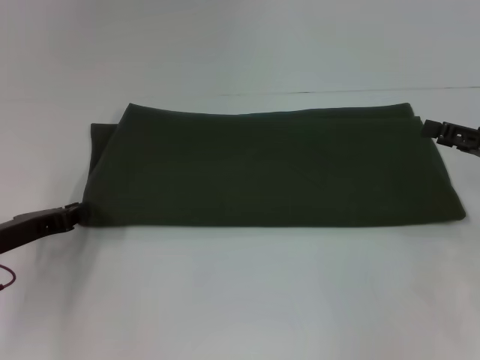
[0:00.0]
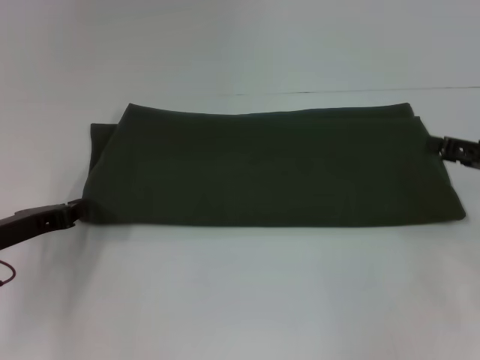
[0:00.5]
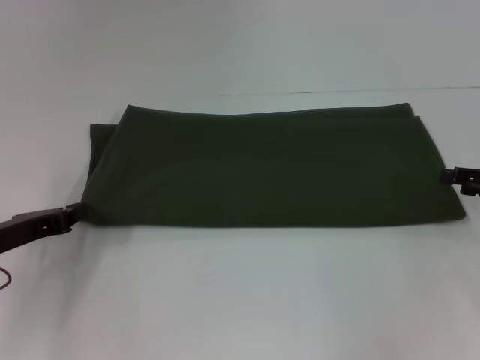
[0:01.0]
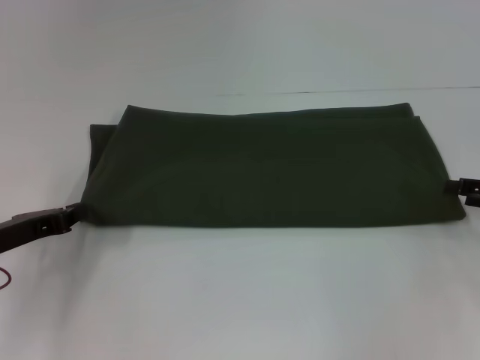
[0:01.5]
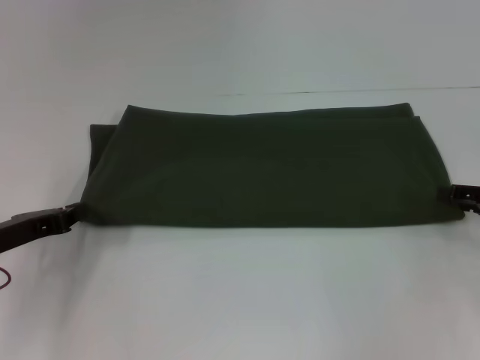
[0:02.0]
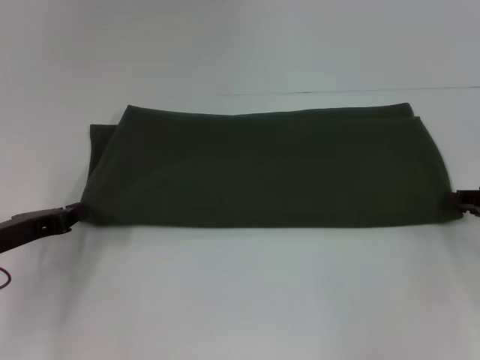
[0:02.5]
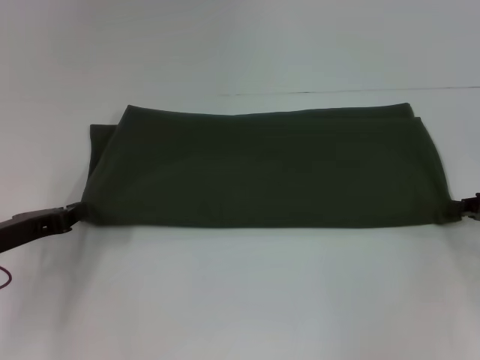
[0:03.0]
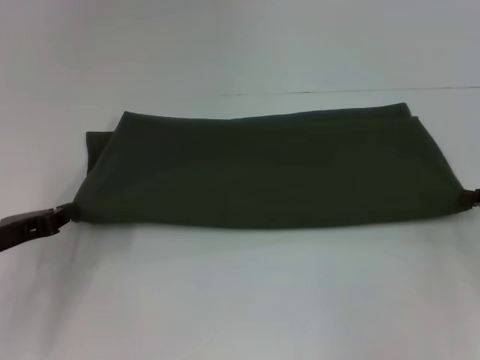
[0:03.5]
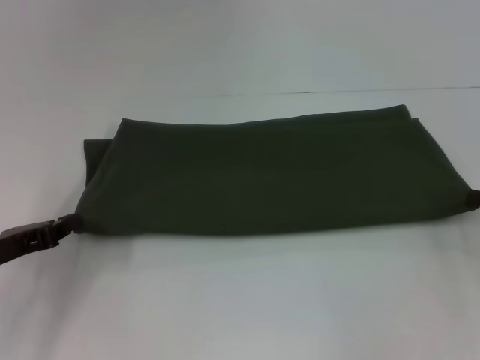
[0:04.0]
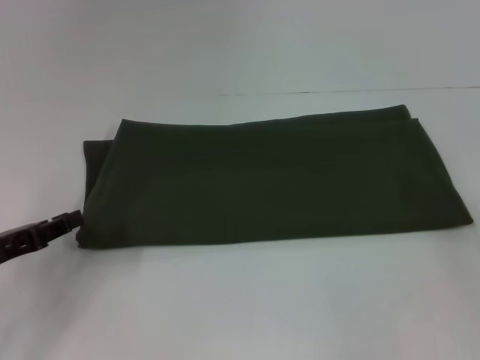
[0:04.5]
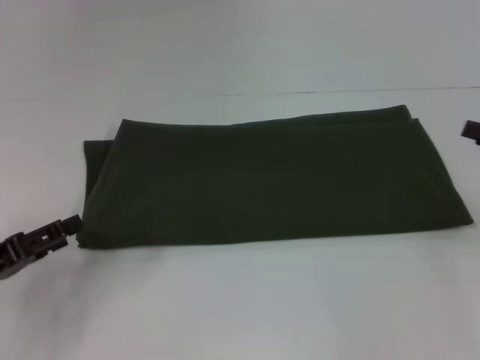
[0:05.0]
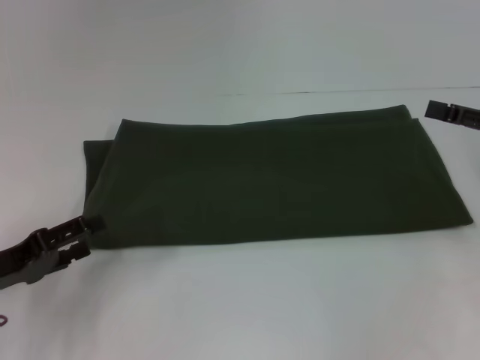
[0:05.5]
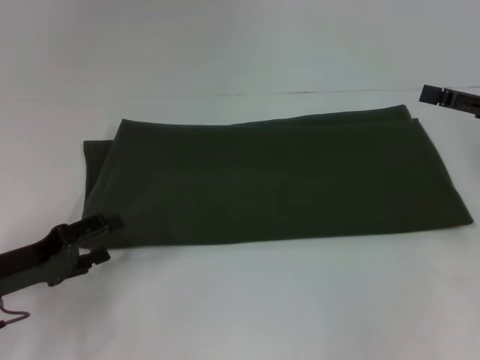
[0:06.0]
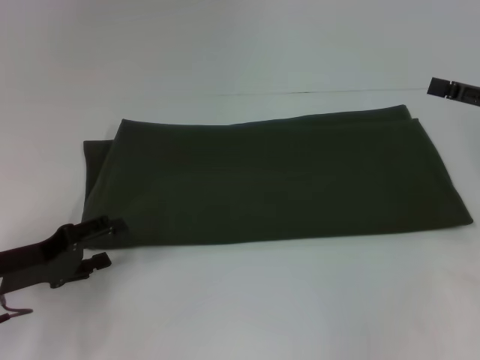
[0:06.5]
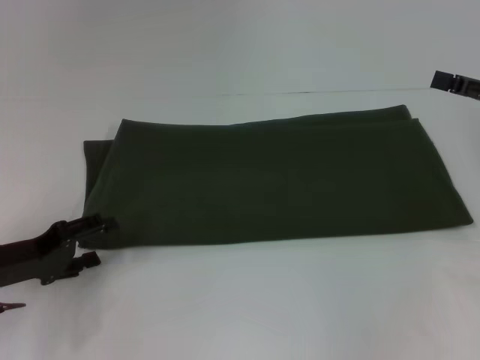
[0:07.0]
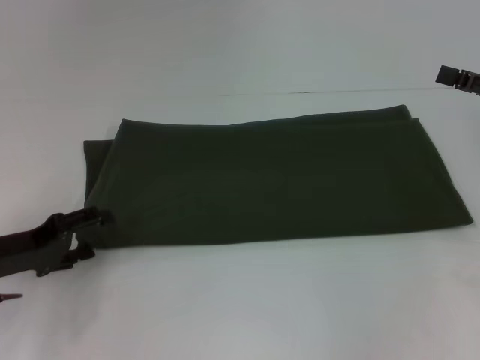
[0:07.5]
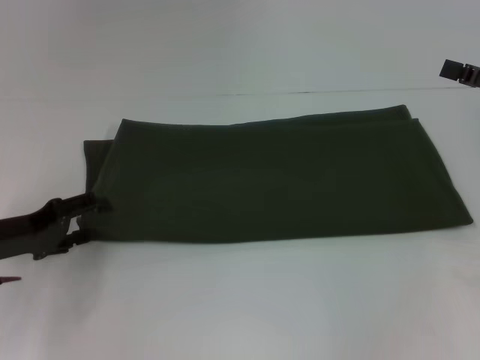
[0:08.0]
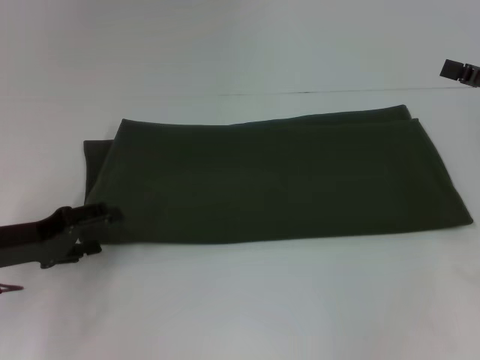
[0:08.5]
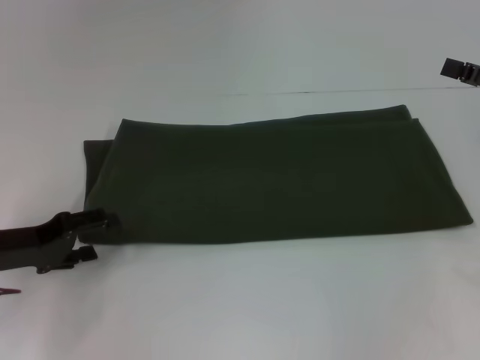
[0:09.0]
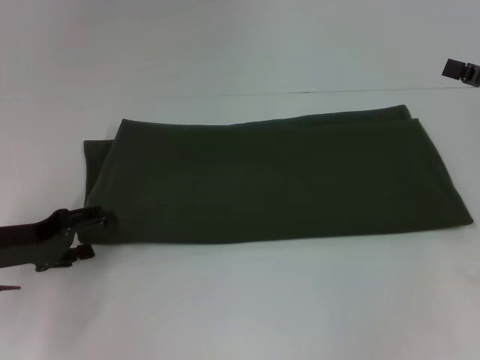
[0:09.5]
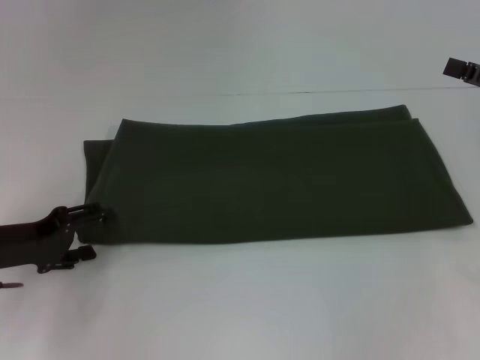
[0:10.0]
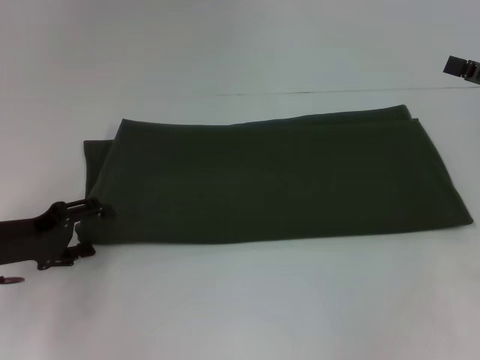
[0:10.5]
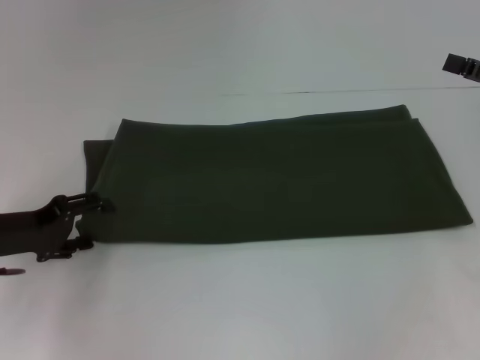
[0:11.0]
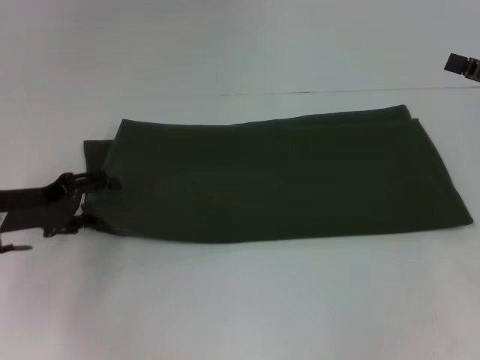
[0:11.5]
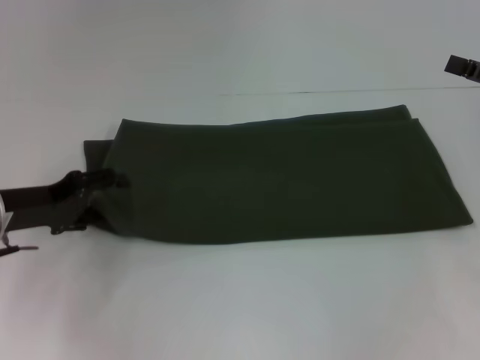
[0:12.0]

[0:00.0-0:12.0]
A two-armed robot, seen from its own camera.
0:02.0 to 0:04.0: The right gripper closes its fingers.
0:04.0 to 0:06.0: The right gripper shifts roughly 5 cm upward, and opens up; the left gripper opens its fingers.
0:06.0 to 0:10.0: The grippers stay close to where they were, moving slightly.
0:10.0 to 0:12.0: The grippers make only small movements.

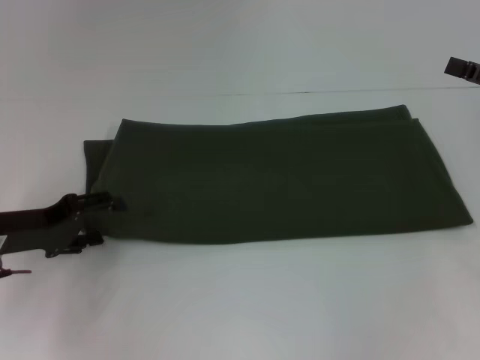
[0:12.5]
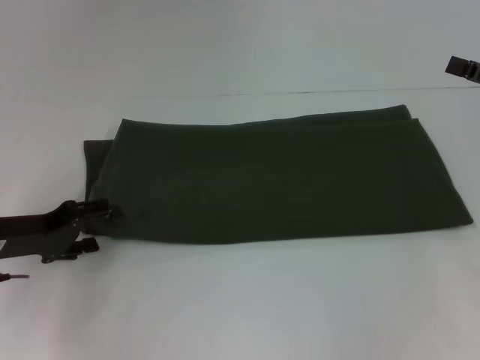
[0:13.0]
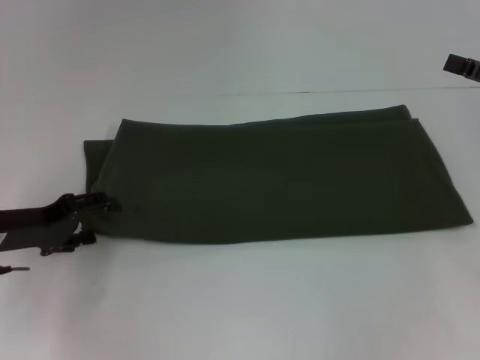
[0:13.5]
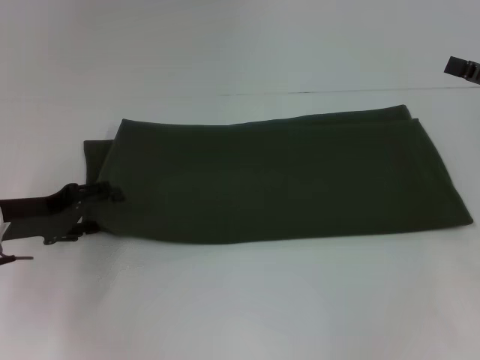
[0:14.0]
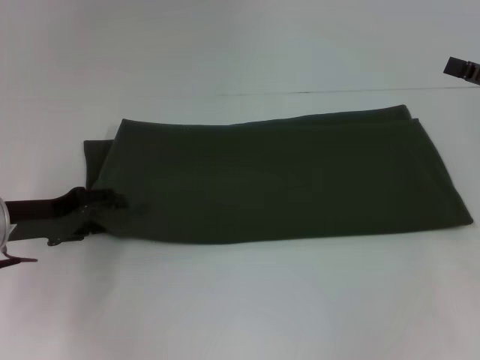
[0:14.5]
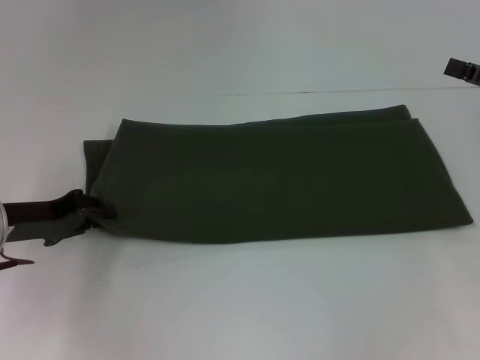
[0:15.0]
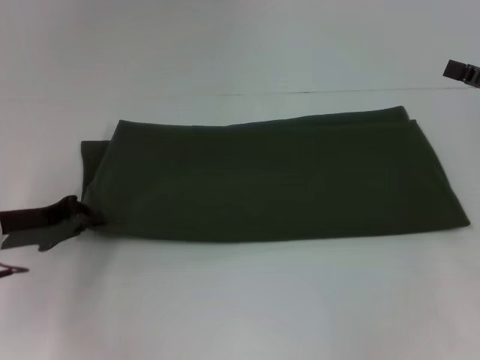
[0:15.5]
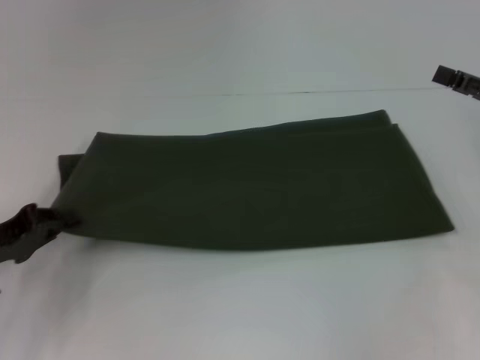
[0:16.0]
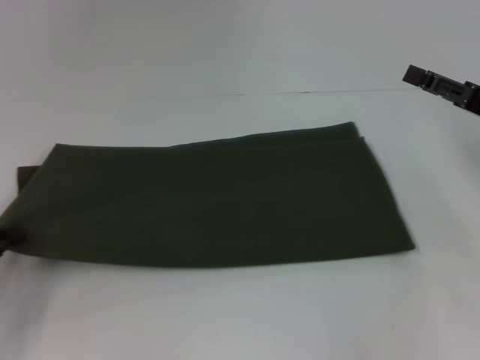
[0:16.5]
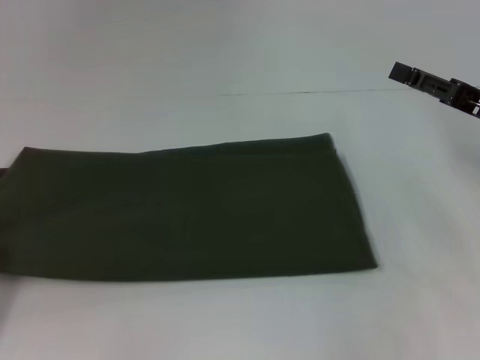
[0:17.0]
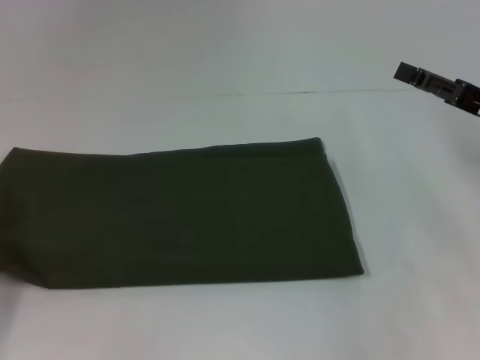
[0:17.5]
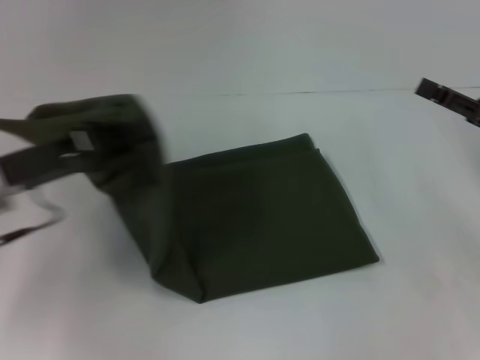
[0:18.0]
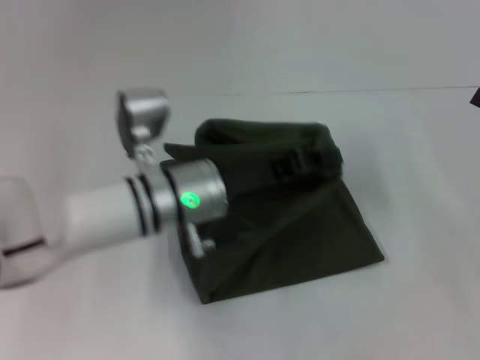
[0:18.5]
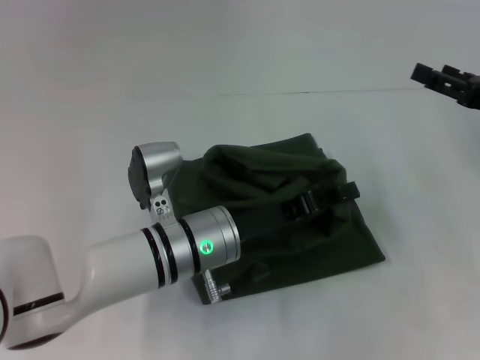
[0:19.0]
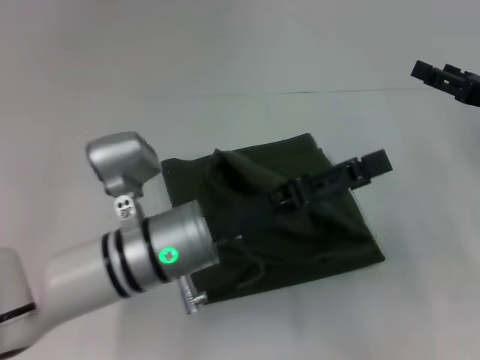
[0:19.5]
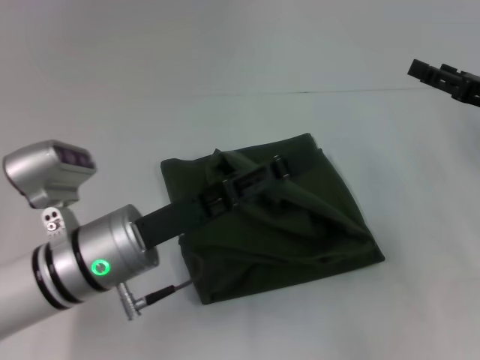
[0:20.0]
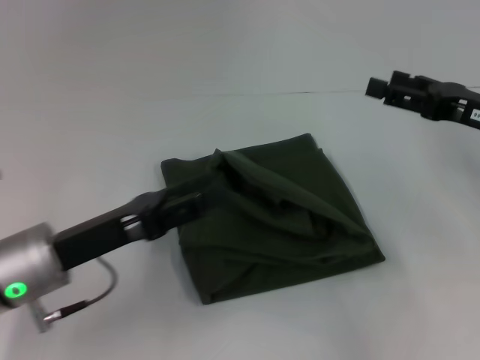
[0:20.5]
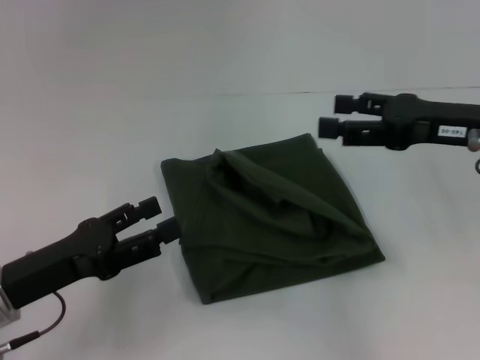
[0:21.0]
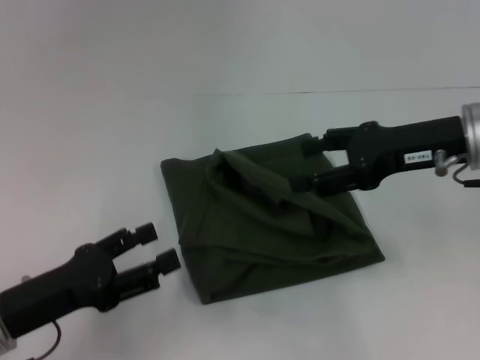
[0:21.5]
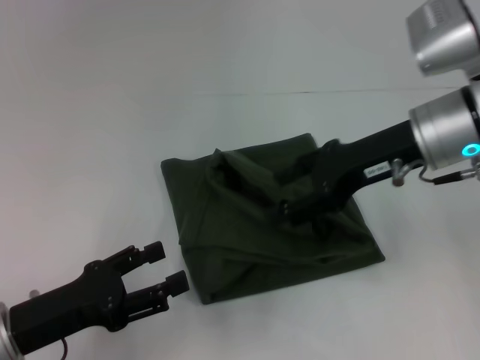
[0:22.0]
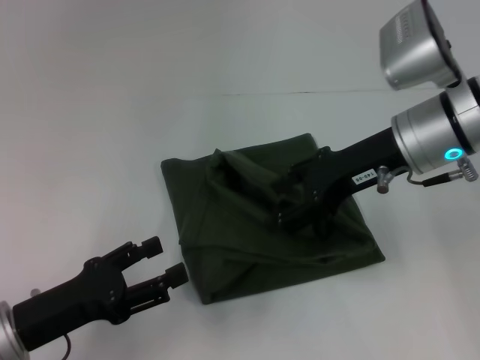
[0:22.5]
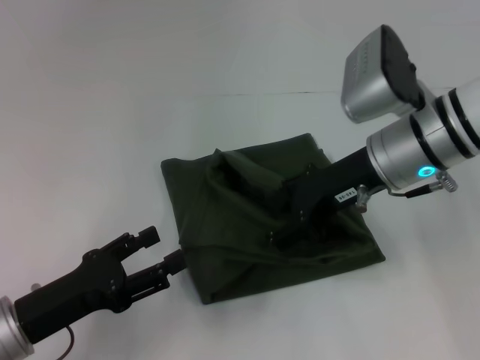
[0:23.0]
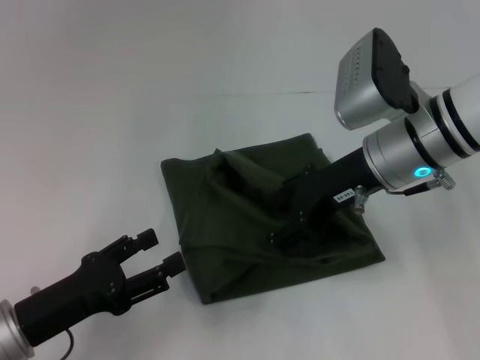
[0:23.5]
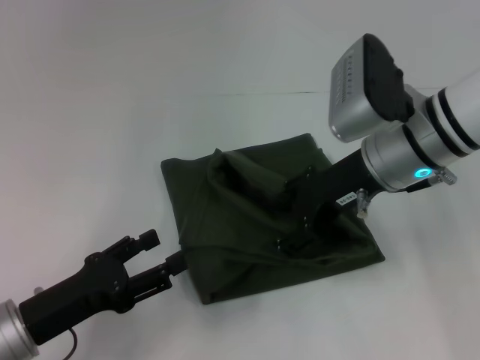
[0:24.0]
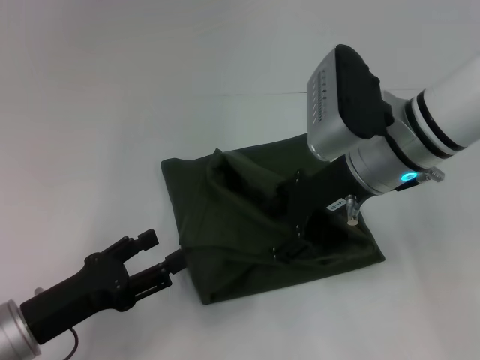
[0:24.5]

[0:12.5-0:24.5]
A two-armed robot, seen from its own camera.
0:12.5 to 0:14.5: There are only small adjustments of the grippers.
0:14.5 to 0:16.5: The left gripper travels backward and to the left by about 10 cm, and closes.
0:16.5 to 0:18.5: The right gripper is displaced to the right by some 5 cm. The left gripper is displaced to the right by about 30 cm.
0:18.5 to 0:20.5: The left gripper shifts about 15 cm to the left and backward, and opens. Meanwhile the right gripper goes approximately 10 cm to the left and forward.
0:20.5 to 0:22.5: The left gripper moves backward, approximately 5 cm; the right gripper travels to the left by approximately 15 cm.

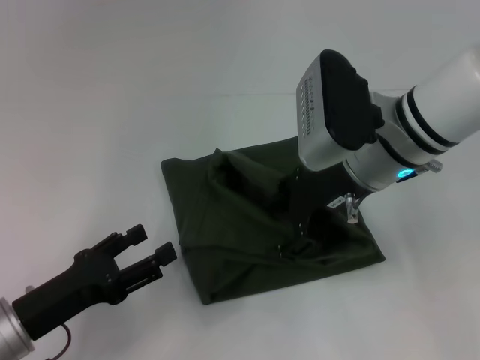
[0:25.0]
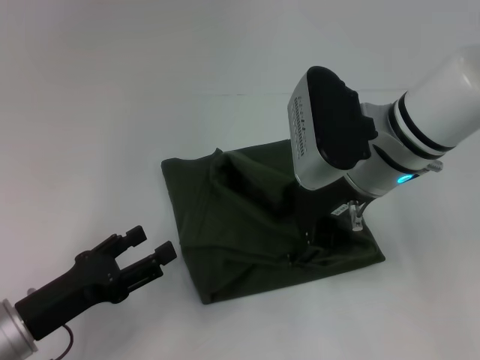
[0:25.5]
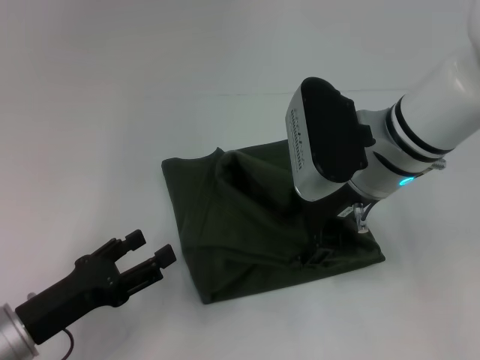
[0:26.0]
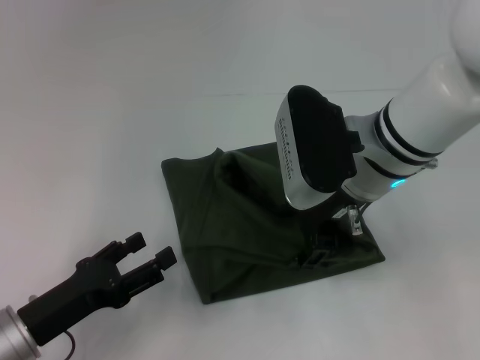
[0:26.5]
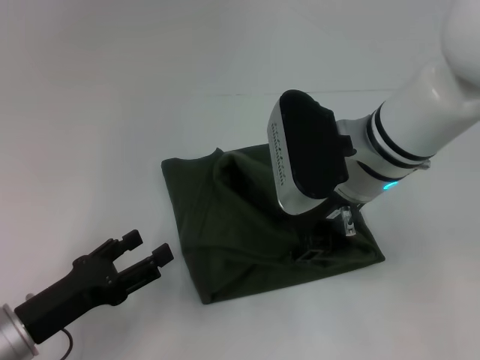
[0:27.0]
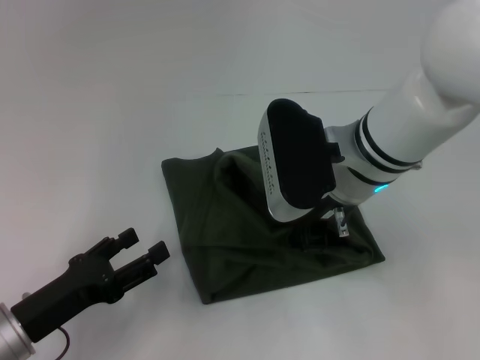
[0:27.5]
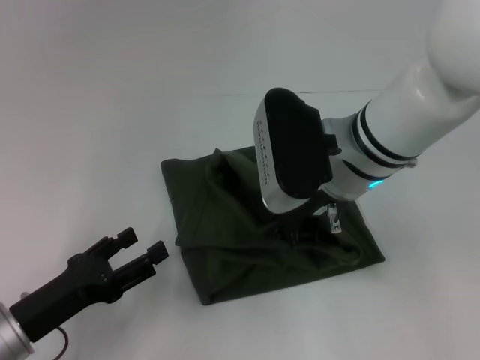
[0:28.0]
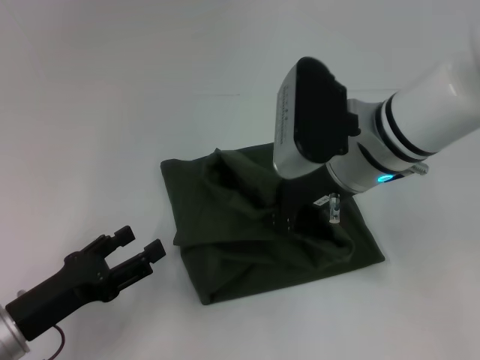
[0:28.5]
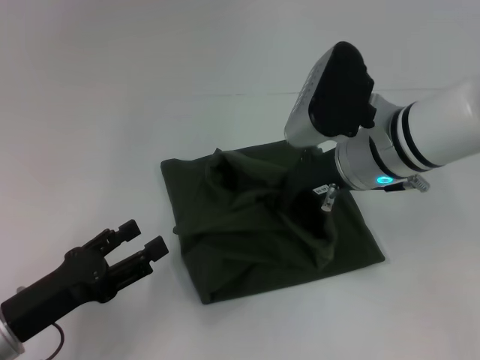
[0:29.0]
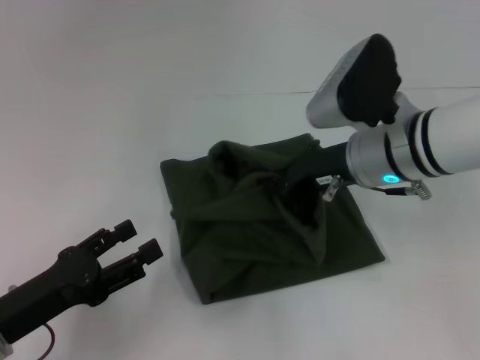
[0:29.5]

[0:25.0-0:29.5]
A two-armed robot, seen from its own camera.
0:25.0 to 0:27.0: The grippers move only a little.
0:27.0 to 0:29.5: The right gripper closes up.
